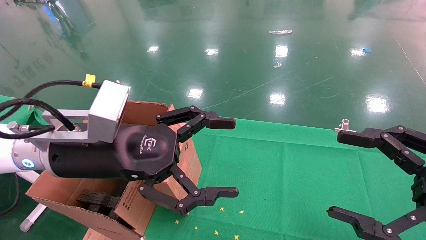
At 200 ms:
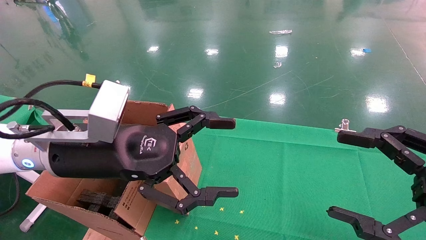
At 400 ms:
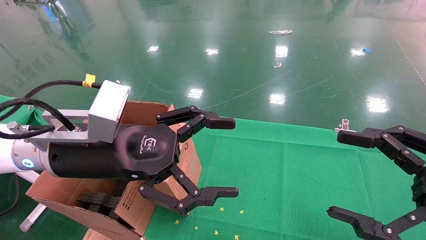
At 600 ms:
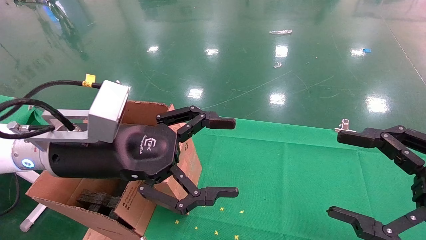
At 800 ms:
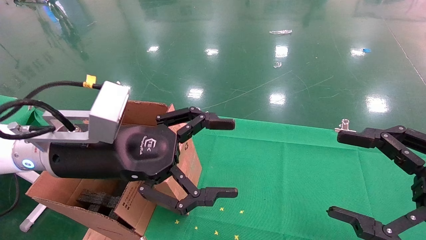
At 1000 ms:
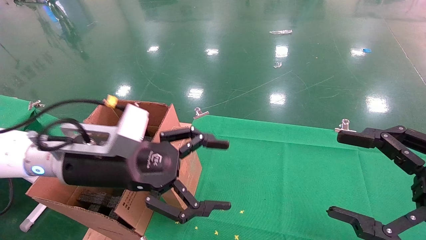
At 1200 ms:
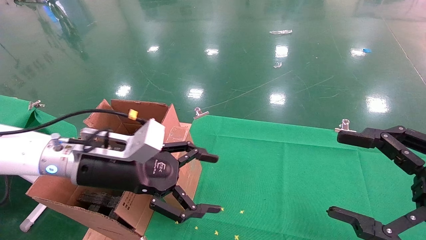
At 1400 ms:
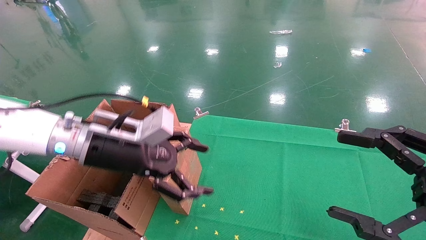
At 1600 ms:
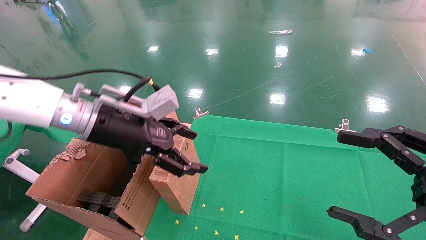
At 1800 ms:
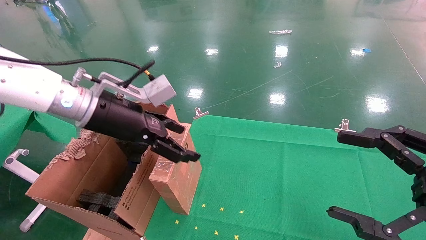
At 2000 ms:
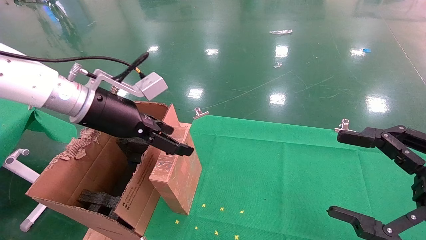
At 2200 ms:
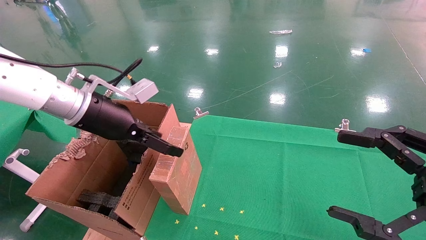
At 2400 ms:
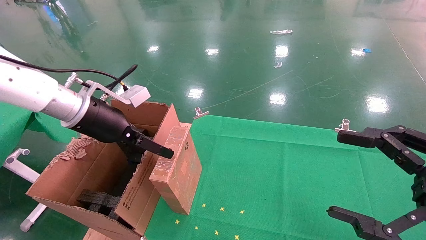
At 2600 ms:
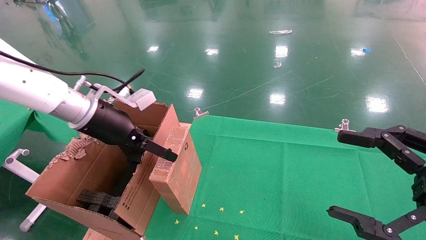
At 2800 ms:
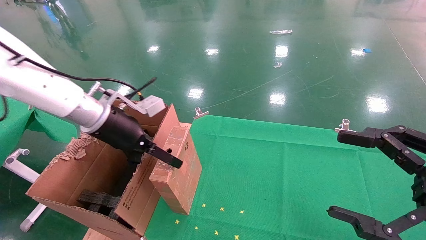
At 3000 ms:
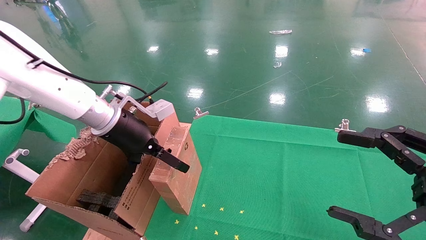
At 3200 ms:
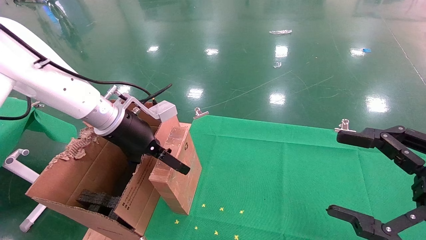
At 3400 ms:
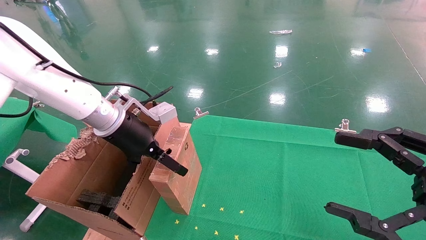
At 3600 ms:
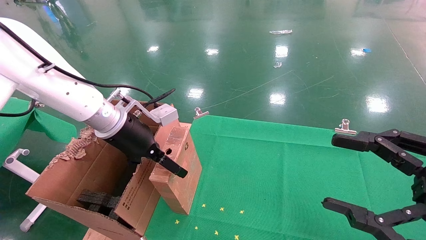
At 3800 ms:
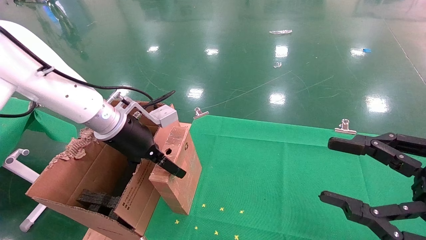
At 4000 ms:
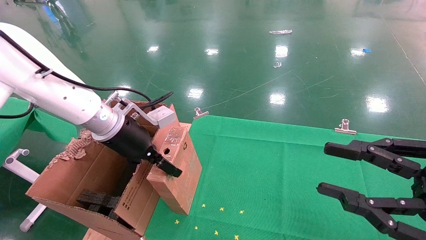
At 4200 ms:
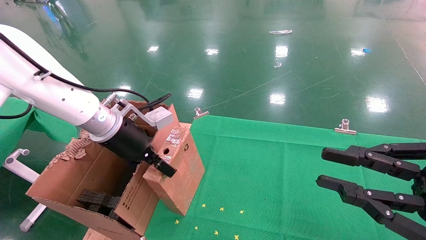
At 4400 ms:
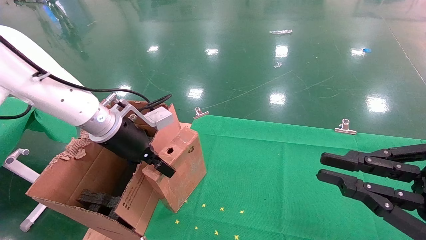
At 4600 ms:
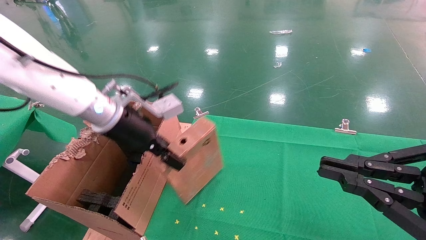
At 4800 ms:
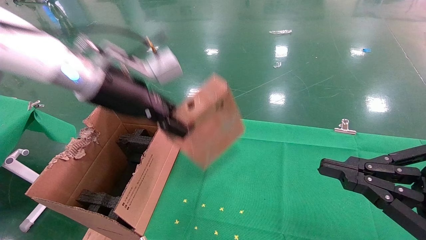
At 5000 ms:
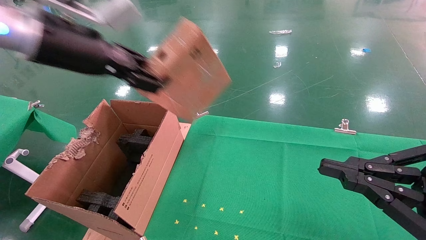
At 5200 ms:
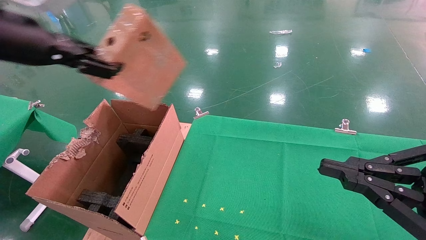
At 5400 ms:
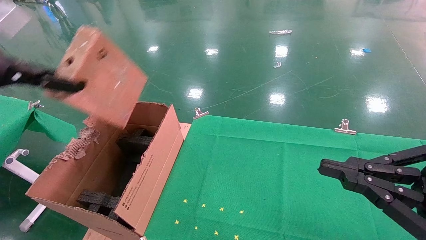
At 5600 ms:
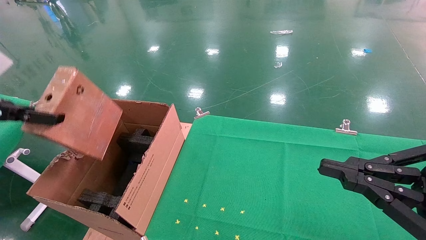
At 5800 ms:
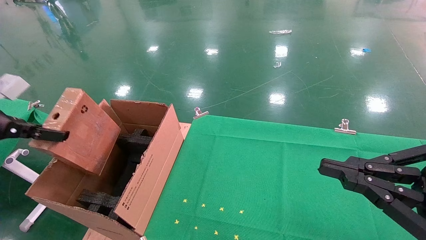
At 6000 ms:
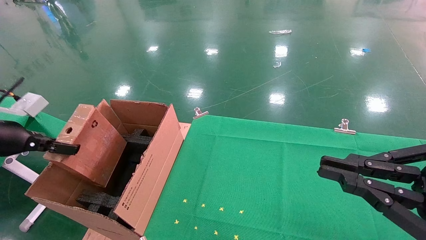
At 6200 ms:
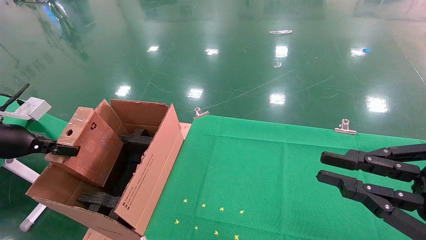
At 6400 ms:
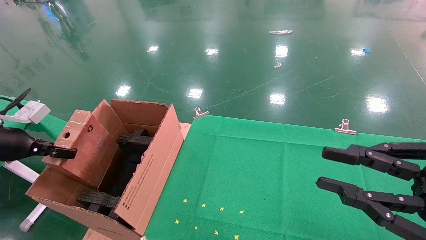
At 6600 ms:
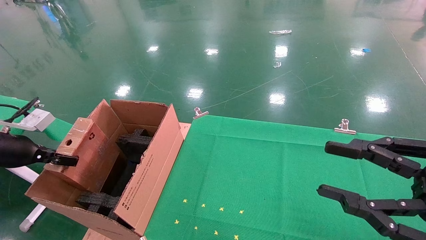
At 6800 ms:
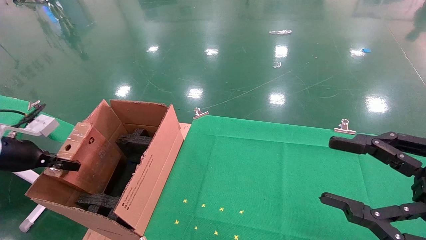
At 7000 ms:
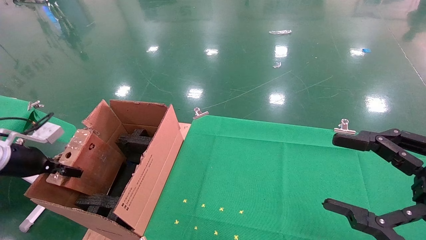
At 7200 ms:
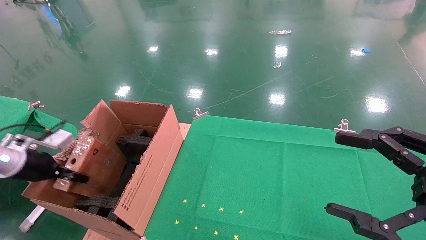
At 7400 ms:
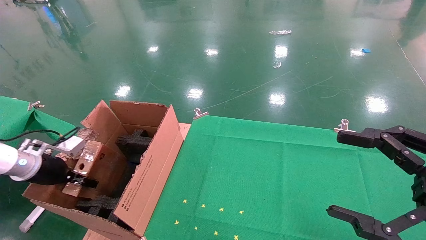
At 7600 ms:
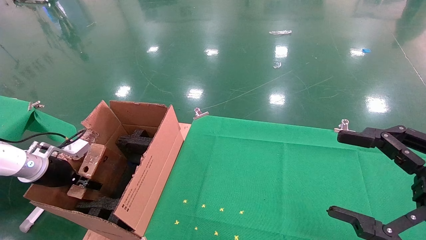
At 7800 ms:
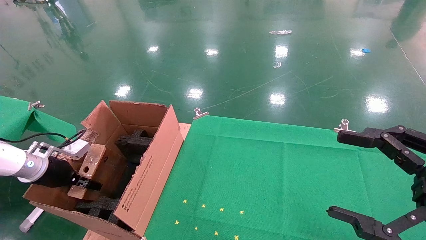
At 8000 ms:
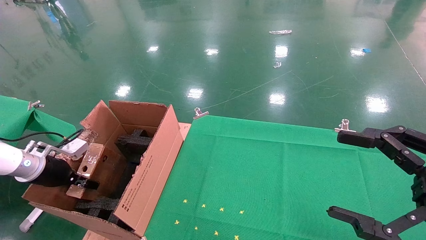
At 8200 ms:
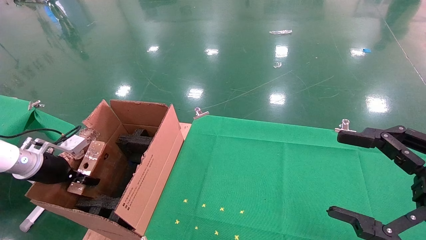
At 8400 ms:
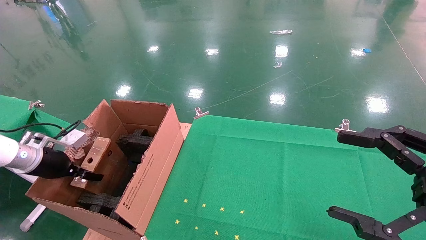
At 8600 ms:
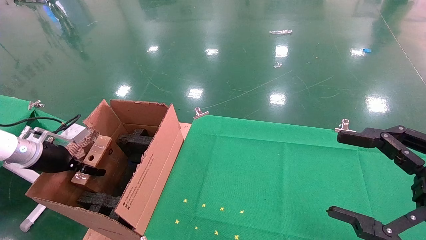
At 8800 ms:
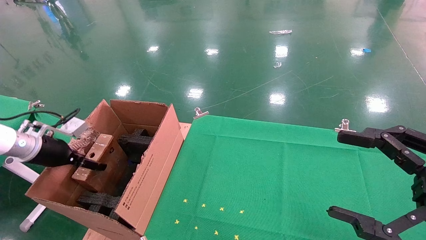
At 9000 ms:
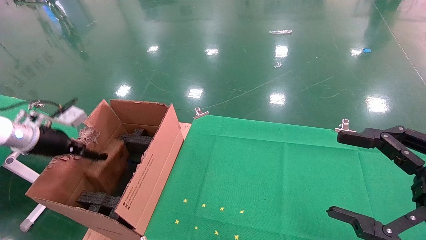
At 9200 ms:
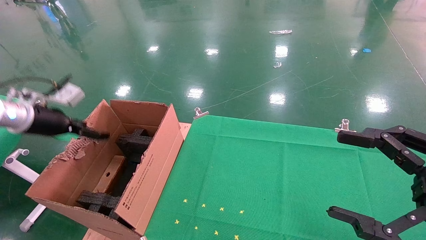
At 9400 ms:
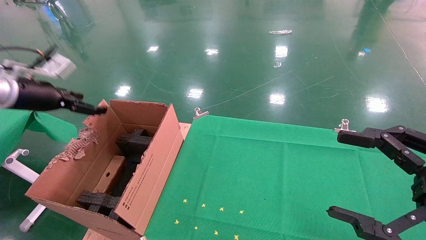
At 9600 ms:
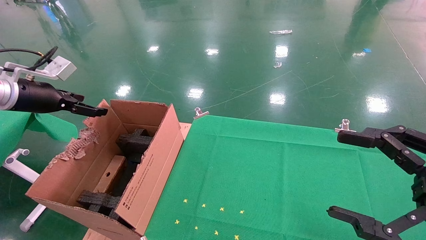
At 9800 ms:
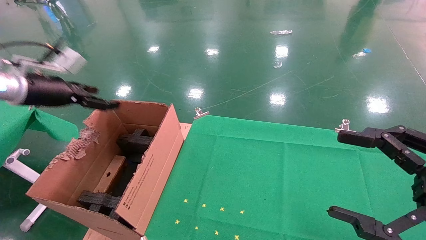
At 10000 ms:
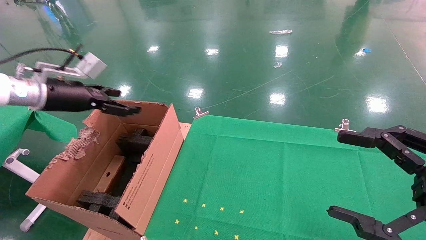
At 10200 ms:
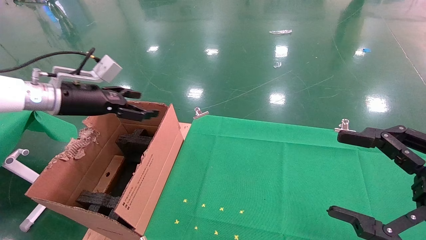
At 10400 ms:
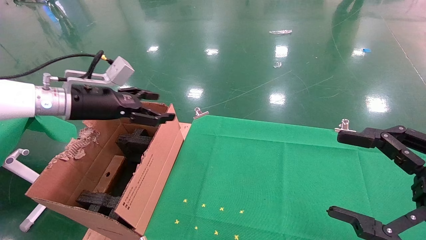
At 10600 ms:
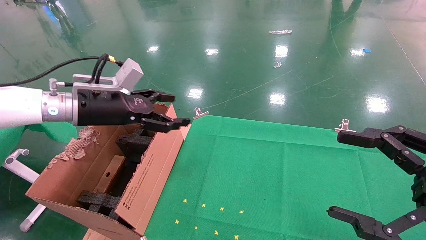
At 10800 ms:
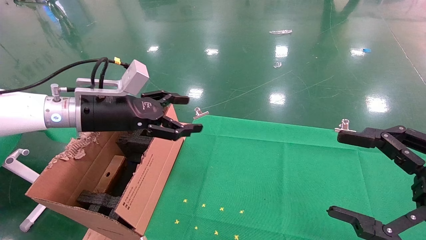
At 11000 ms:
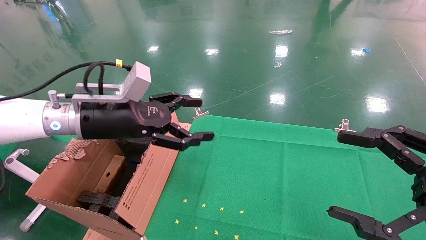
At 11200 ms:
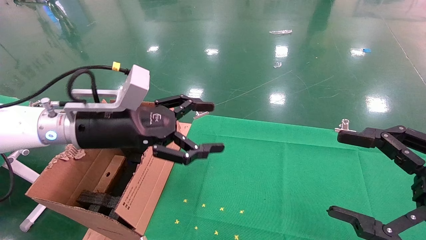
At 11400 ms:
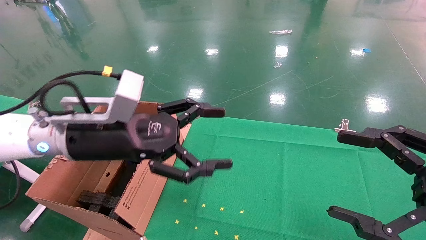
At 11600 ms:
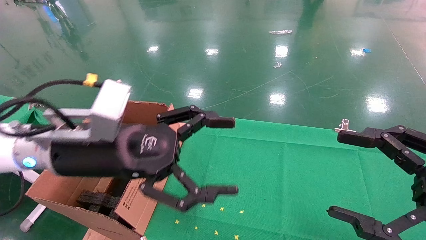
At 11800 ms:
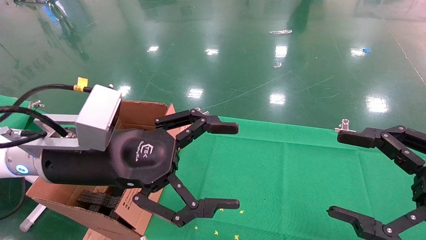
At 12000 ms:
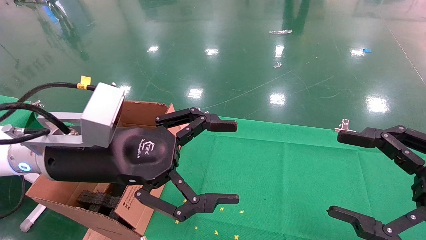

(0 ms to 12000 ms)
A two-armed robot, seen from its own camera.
Task of the whole recording: using a robotic arm to pick up a cardboard box and palace it the carton.
Step, 1200 ms - 4400 ms: Pick up the mouse and the power cord paper box.
Step, 4600 ms - 9400 ms: Place the mouse and the power cord paper box into the container.
0 ms - 1600 ms: The left gripper travels forward by approximately 5 cm.
1600 ms - 3000 ms: The left gripper travels forward by about 5 cm.
3000 ms - 4400 ms: The left gripper closes, while the right gripper closes its fingers.
4400 ms - 6000 ms: The left gripper heads to the left, covering approximately 25 cm.
6000 ms - 7600 ms: The right gripper opens its fingers; the left gripper goes some 15 cm downward and forward.
7600 ms - 9000 ms: The left gripper heads upward, covering roughly 10 cm, and opens.
9000 ms - 10400 ms: The left gripper is displaced to the right and upward by about 15 cm.
10400 ms - 12000 ms: The left gripper goes about 20 cm backward and to the right.

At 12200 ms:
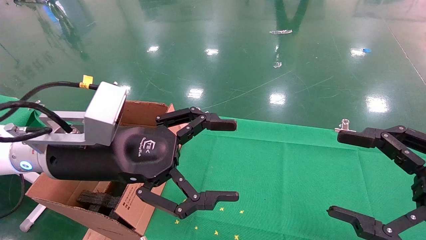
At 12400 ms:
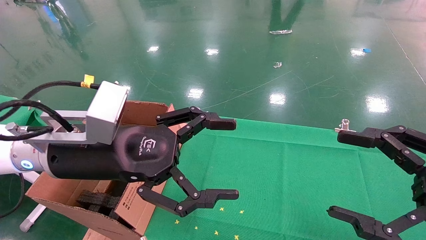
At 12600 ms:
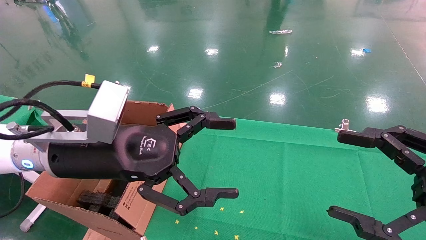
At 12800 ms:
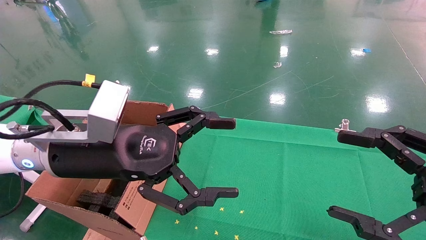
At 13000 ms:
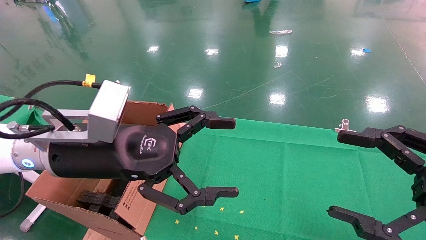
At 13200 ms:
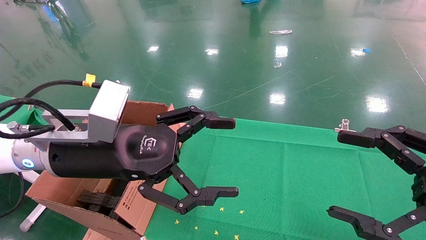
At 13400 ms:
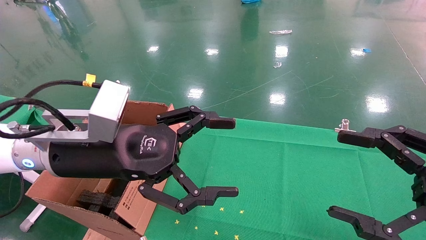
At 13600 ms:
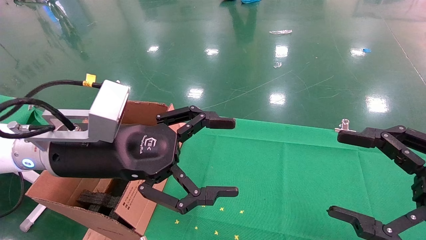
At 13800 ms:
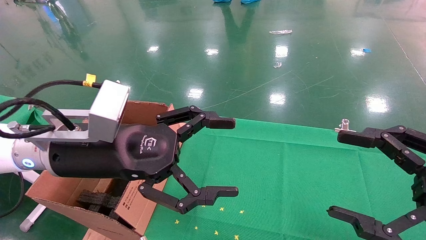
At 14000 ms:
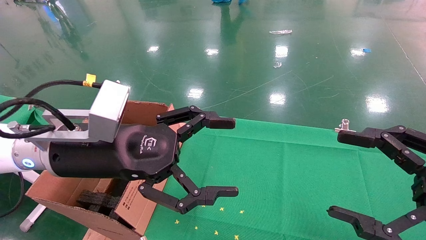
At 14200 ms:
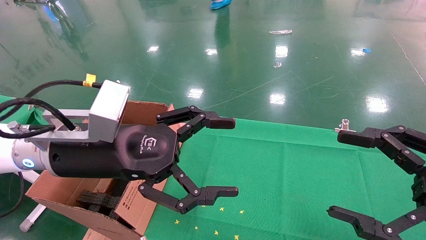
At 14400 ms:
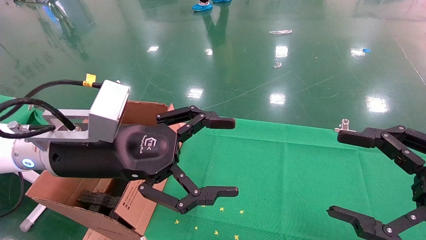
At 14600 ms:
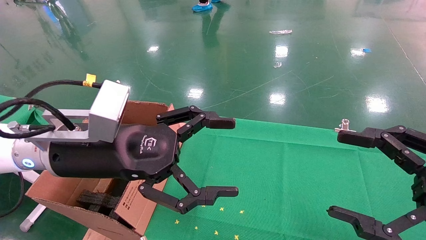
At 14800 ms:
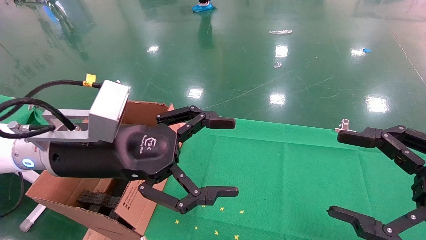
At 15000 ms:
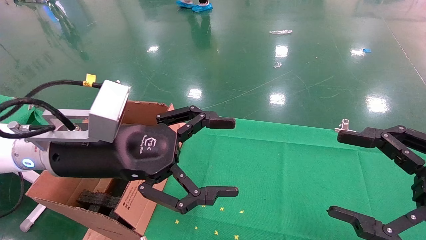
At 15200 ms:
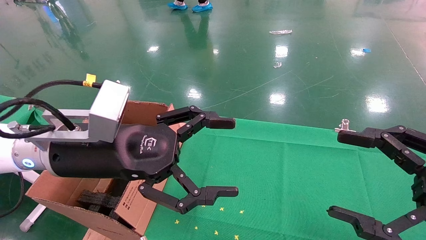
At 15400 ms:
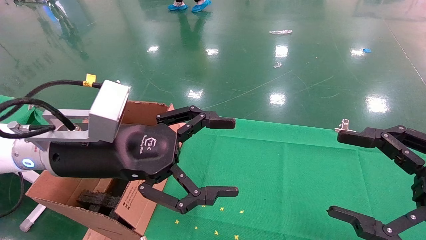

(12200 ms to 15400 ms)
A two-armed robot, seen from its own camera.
Task of the whole recording: using a robotic arm to pick up a cardboard box and palace it the carton.
12200 ms - 15400 ms: Both grippers stay put.

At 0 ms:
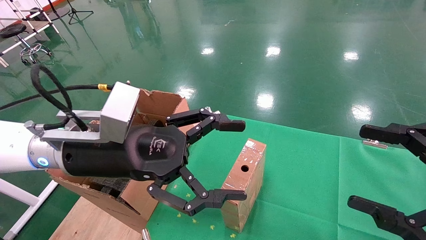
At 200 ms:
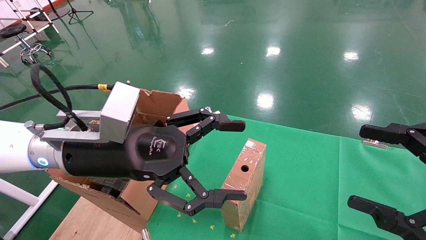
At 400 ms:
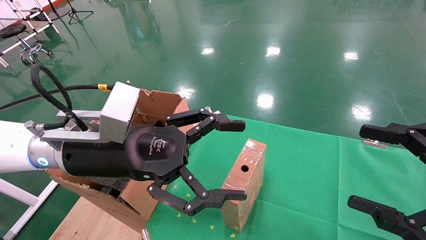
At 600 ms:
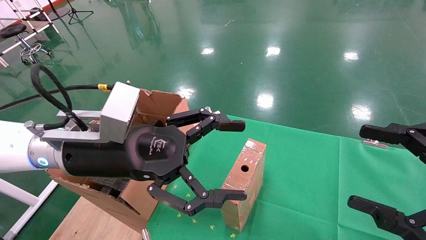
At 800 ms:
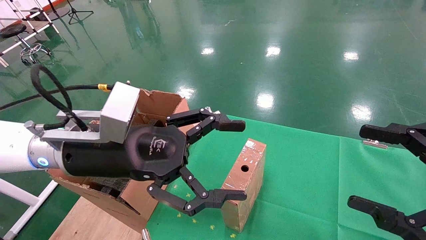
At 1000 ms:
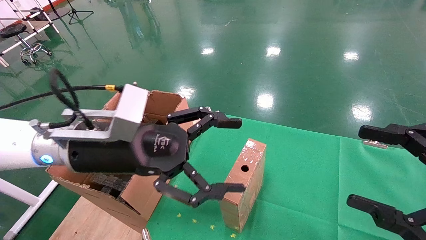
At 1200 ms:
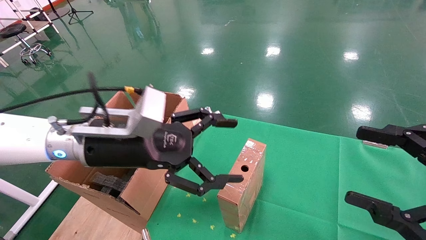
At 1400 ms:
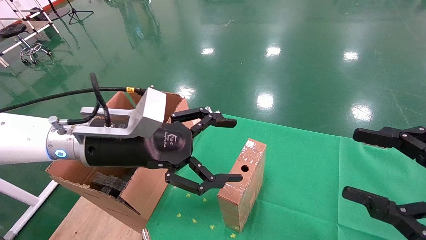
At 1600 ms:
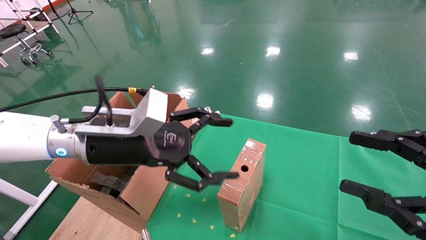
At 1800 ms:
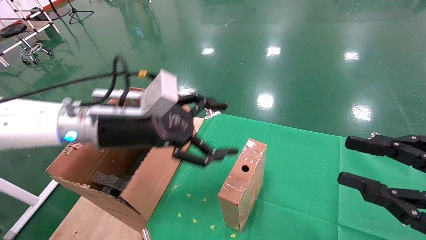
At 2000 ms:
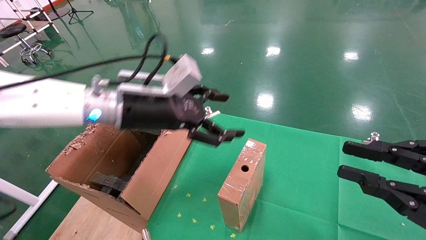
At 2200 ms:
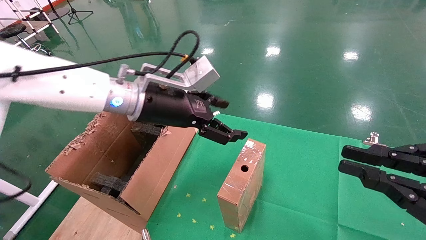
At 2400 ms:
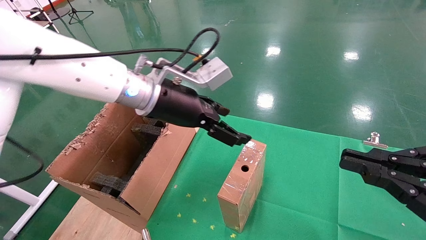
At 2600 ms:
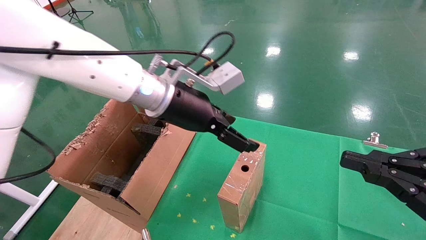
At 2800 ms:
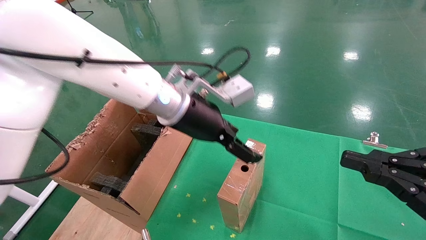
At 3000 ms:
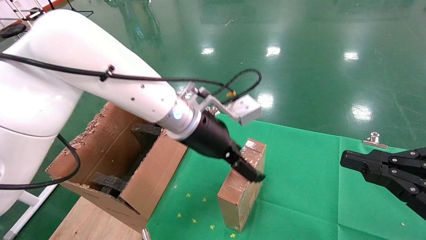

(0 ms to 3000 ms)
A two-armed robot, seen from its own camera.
Task of the whole recording: using a robotic arm to pick up a cardboard box and palace it the carton.
0 ms - 1600 ms: The grippers move only a little.
1600 ms - 3000 ms: The right gripper closes its fingers, while the left gripper heads to the right and forward, covering approximately 15 cm.
